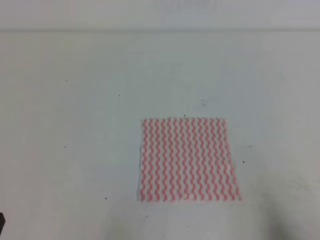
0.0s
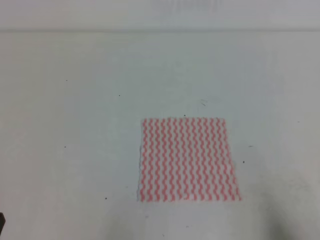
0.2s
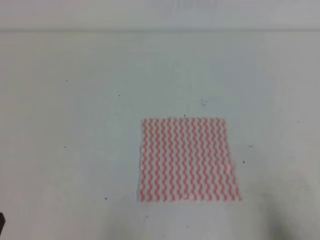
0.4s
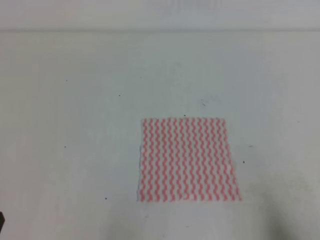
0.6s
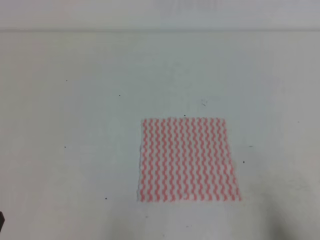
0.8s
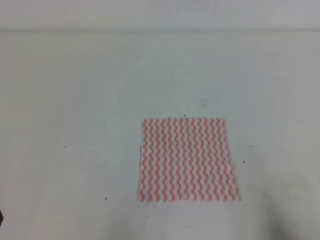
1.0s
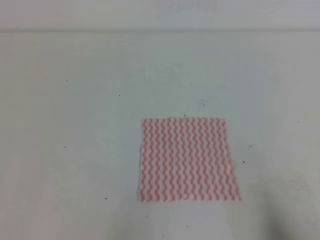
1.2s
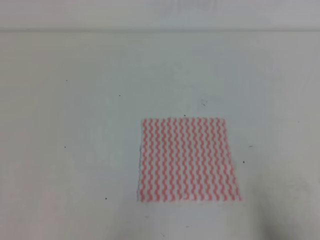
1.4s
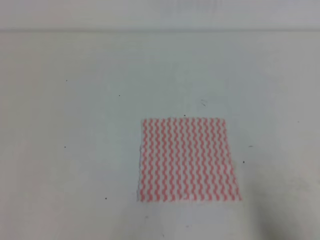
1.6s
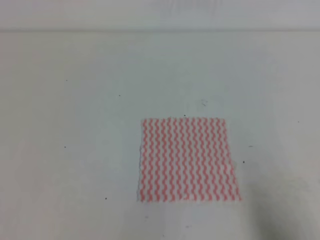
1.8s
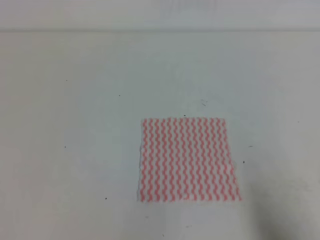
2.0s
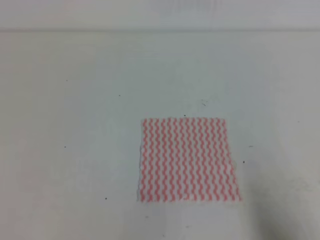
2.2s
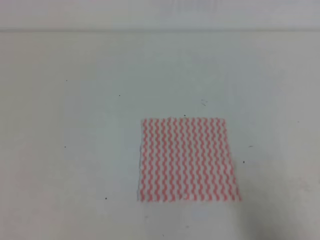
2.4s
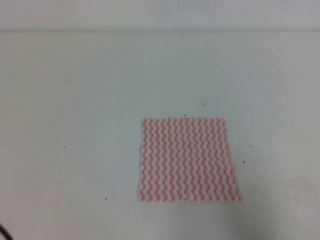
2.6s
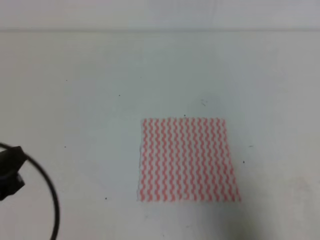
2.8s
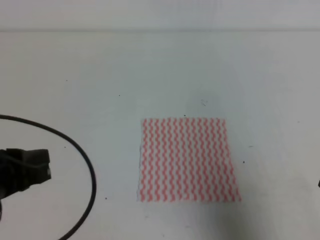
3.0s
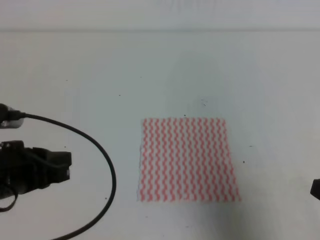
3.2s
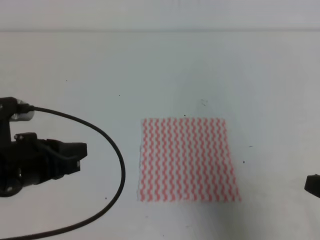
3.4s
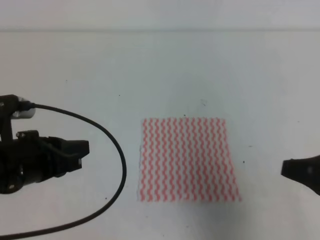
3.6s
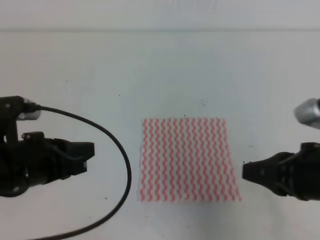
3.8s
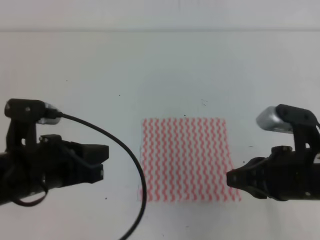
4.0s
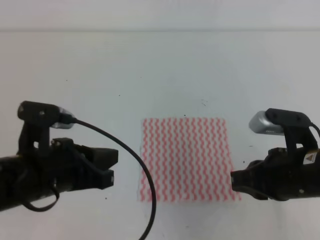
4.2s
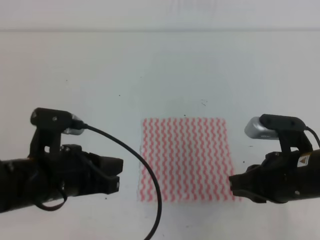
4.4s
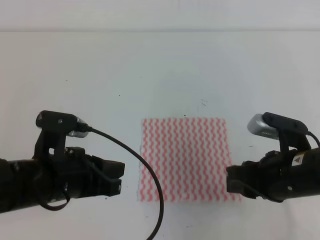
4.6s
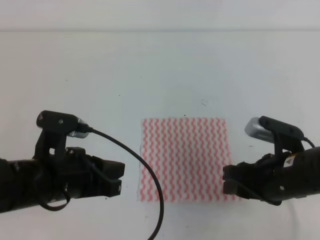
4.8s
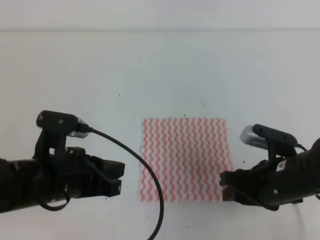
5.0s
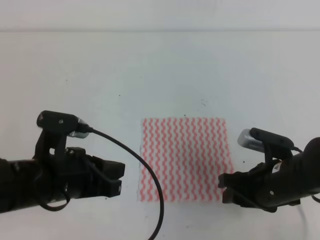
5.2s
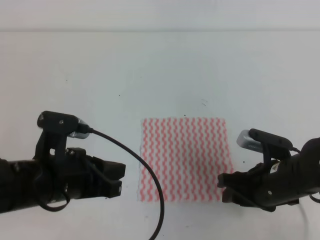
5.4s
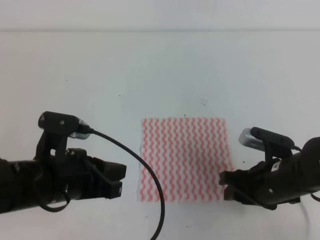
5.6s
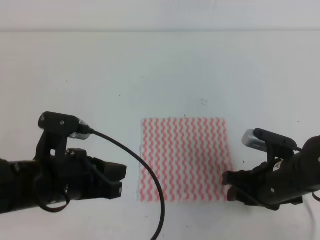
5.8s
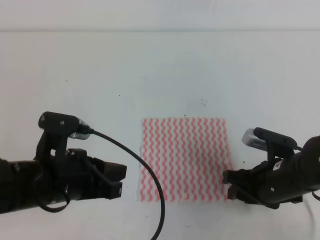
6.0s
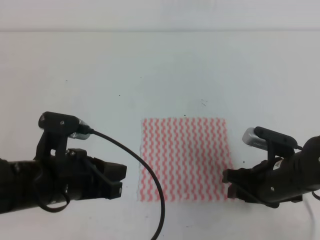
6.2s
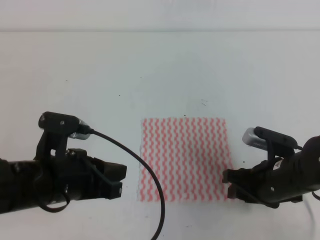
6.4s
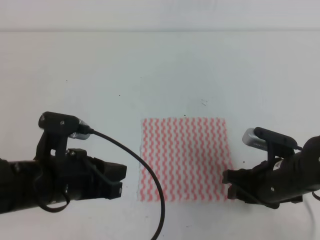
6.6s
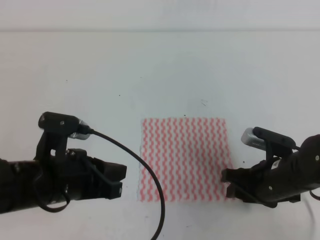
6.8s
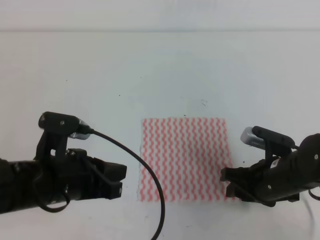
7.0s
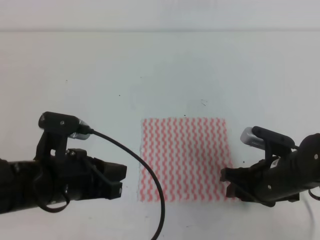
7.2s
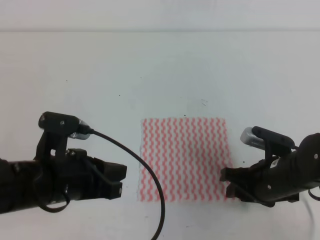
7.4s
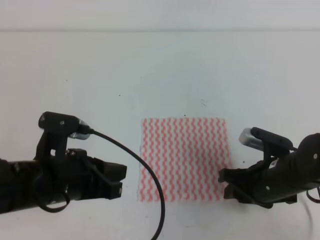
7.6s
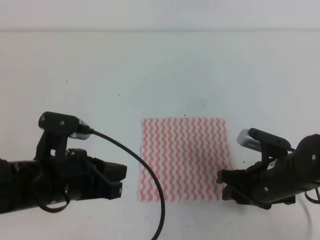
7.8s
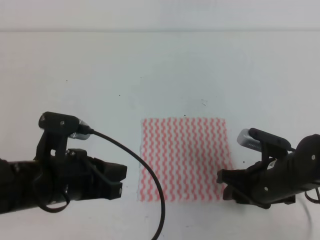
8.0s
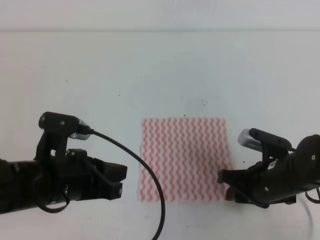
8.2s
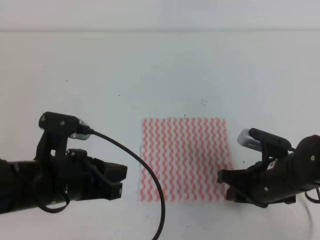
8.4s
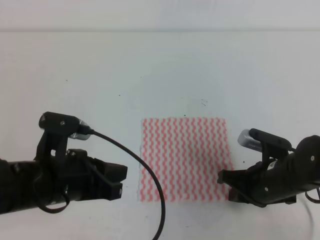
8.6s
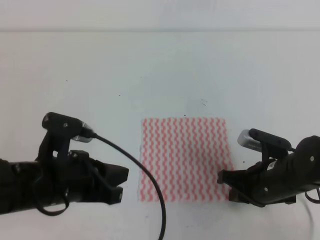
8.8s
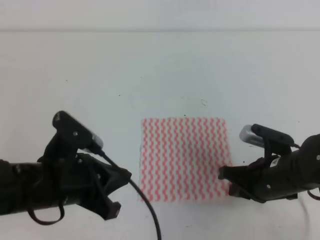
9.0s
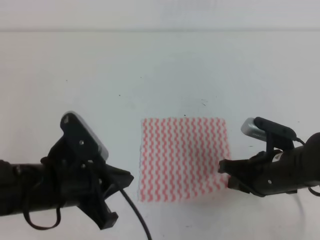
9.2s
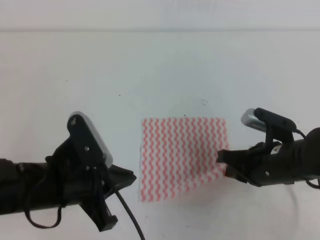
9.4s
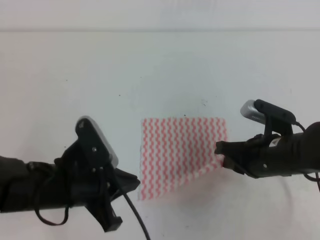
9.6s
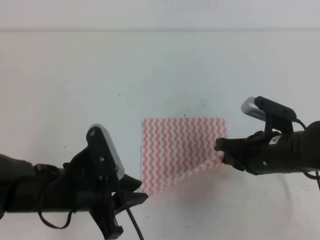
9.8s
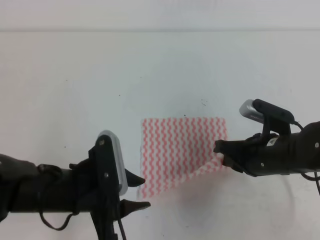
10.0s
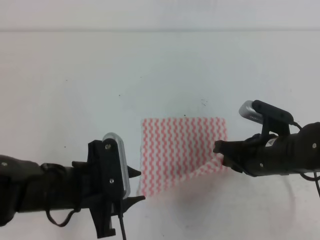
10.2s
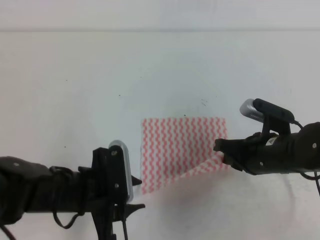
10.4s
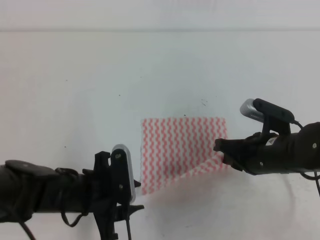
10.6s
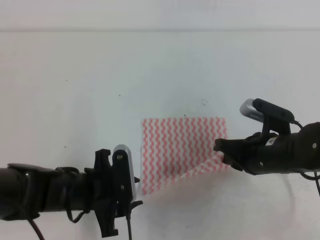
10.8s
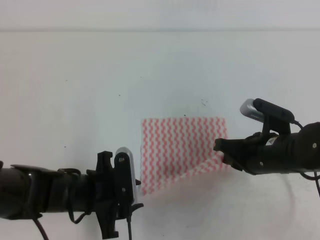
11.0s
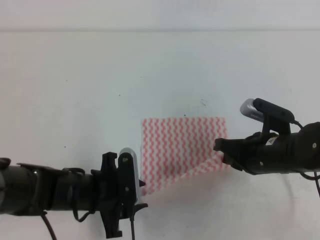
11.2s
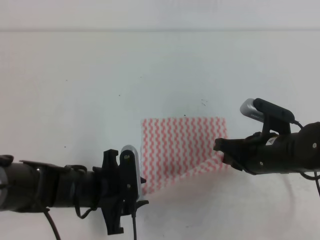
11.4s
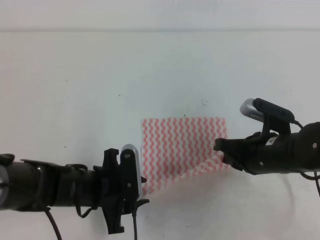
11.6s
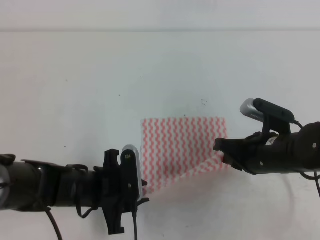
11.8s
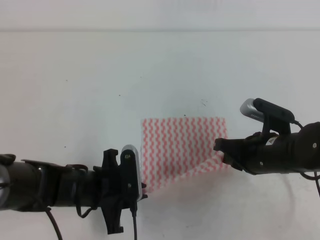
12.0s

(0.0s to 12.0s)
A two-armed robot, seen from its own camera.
1.6s - 3.0s: The right gripper goes approximately 10 cm upward, while the left gripper shifts some 10 cm forward and upward.
3.0s - 4.4s: The left gripper heads to the right, covering approximately 5 cm. The right gripper shifts approximately 15 cm forward and to the left.
4.4s - 6.0s: The right gripper is displaced downward by some 5 cm, and opens its fingers.
6.0s - 7.6s: The two grippers keep their place.
7.6s - 9.0s: The right gripper closes up.
9.0s - 10.4s: The left gripper shifts about 5 cm downward, and opens its fingers.
10.4s - 12.0s: The left gripper shifts by approximately 5 cm, and closes.

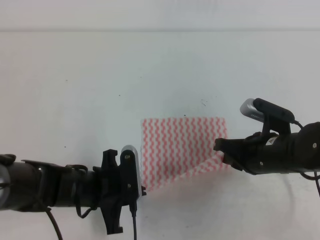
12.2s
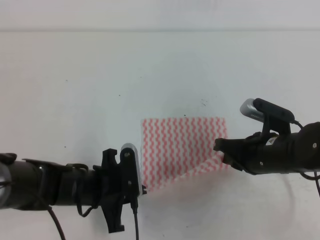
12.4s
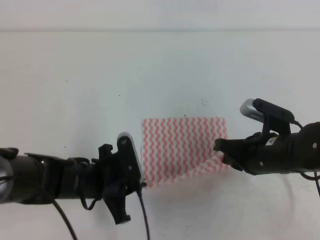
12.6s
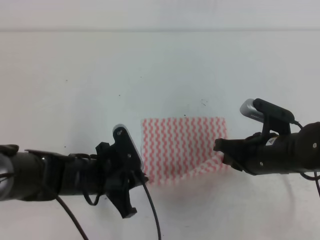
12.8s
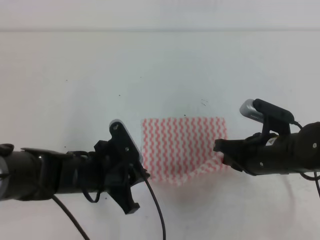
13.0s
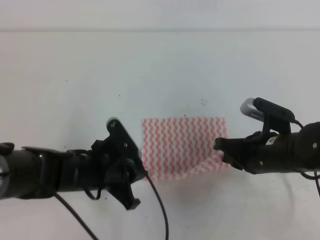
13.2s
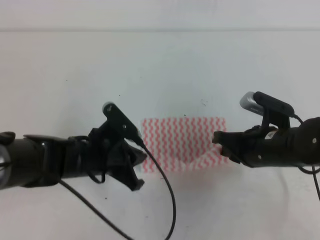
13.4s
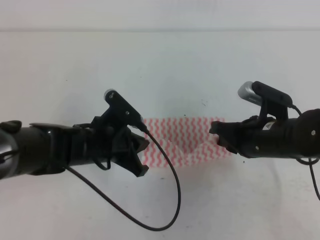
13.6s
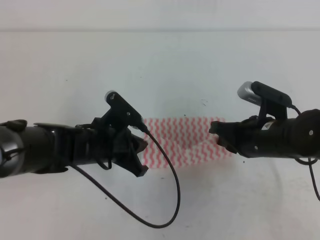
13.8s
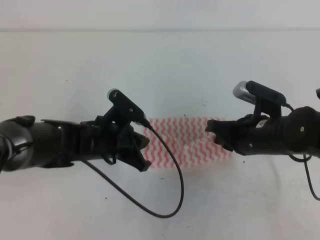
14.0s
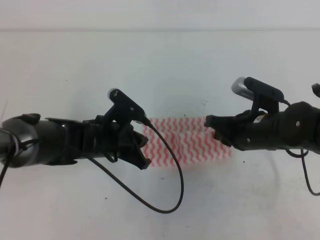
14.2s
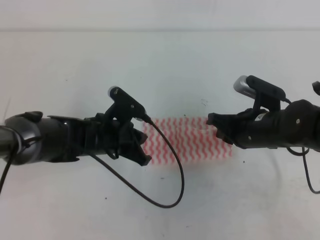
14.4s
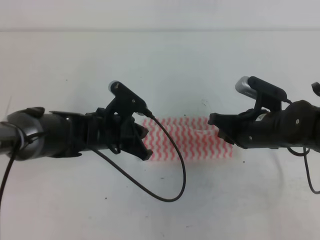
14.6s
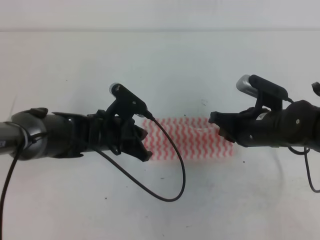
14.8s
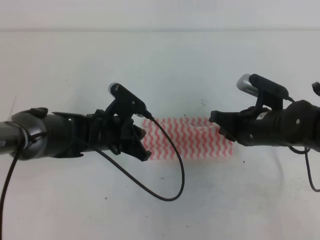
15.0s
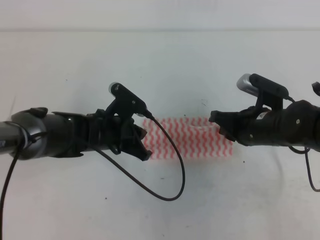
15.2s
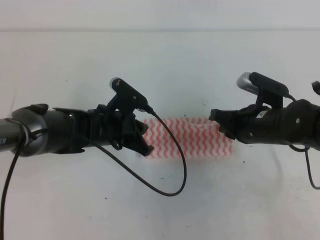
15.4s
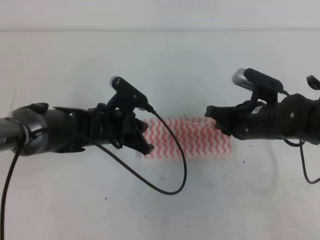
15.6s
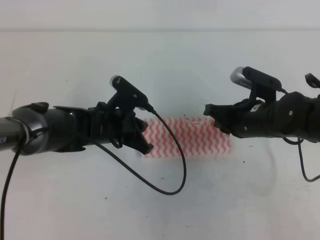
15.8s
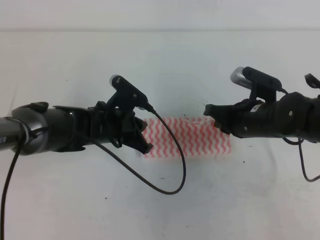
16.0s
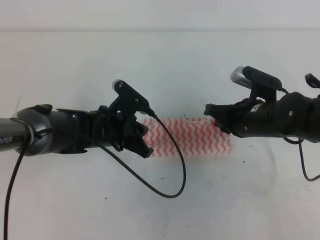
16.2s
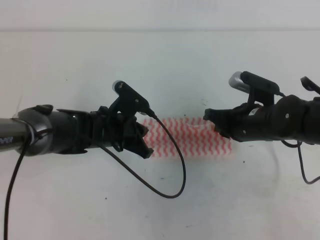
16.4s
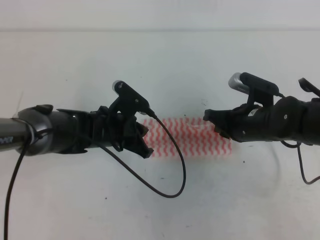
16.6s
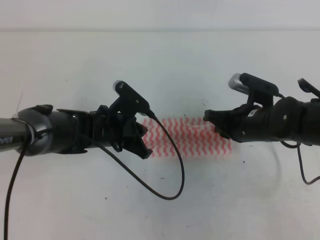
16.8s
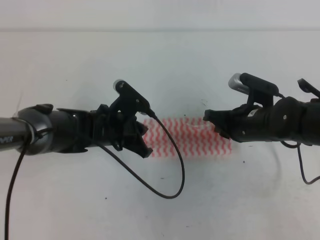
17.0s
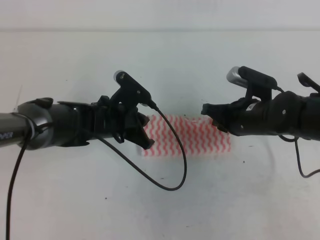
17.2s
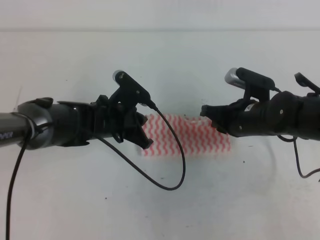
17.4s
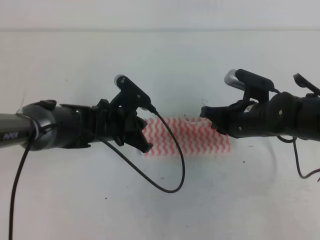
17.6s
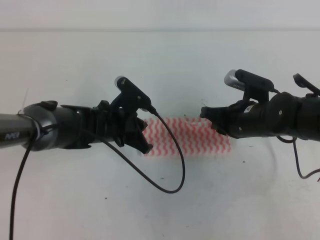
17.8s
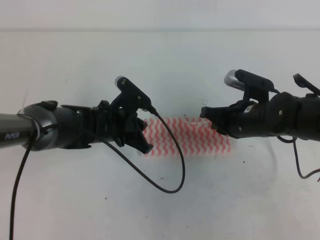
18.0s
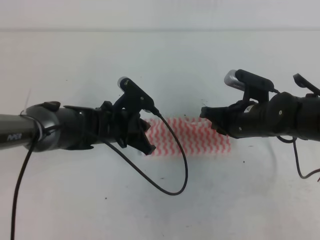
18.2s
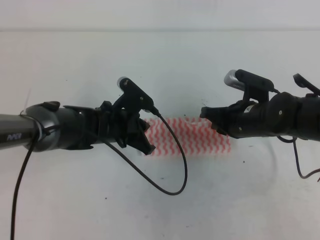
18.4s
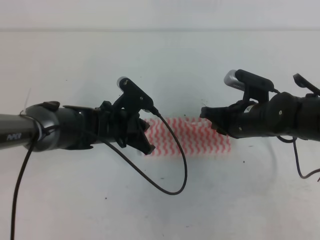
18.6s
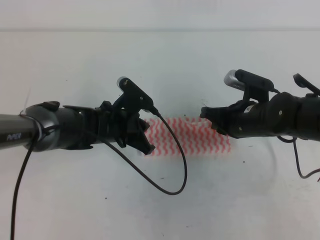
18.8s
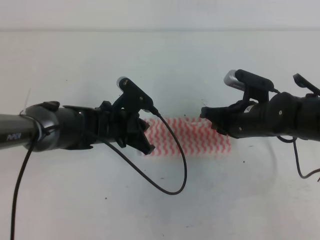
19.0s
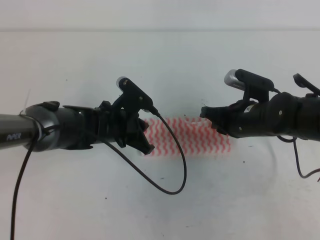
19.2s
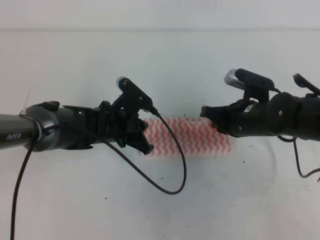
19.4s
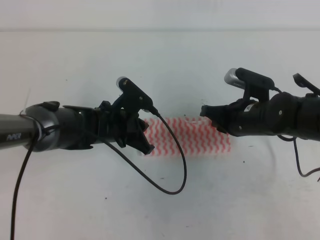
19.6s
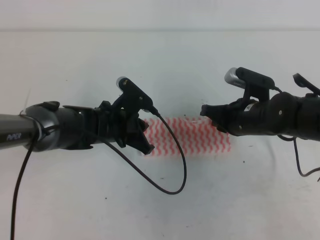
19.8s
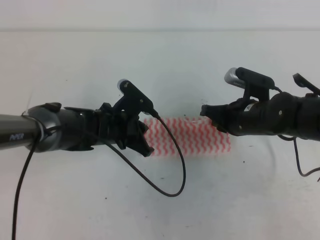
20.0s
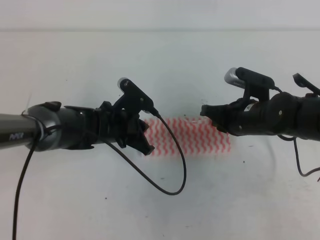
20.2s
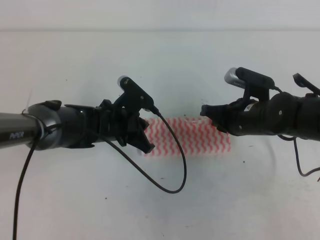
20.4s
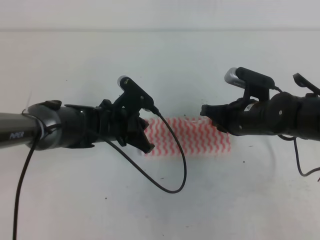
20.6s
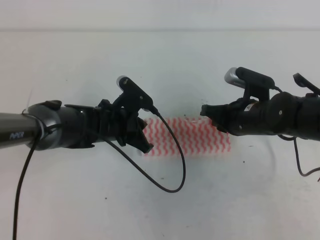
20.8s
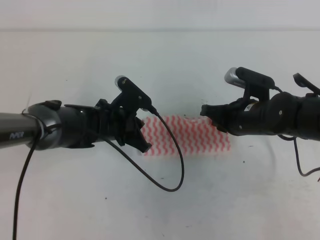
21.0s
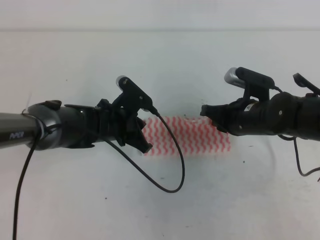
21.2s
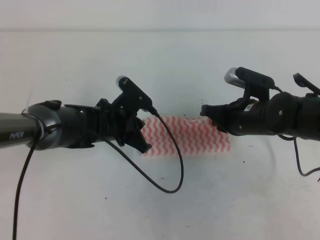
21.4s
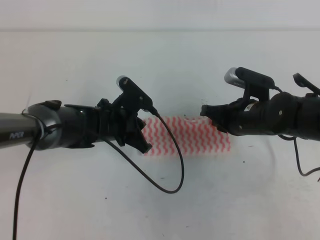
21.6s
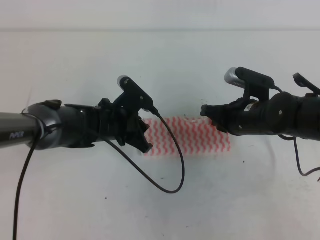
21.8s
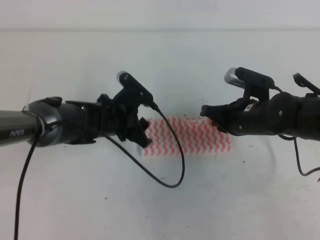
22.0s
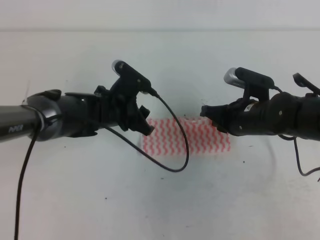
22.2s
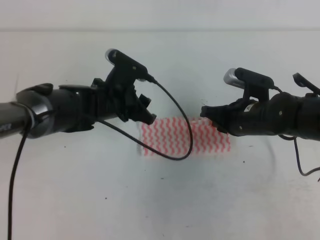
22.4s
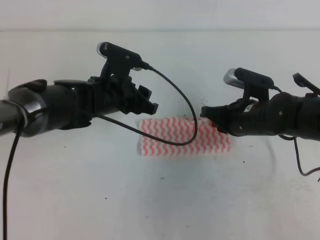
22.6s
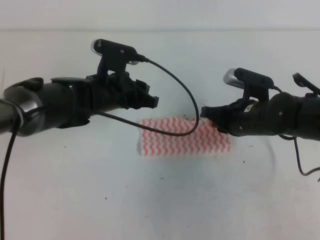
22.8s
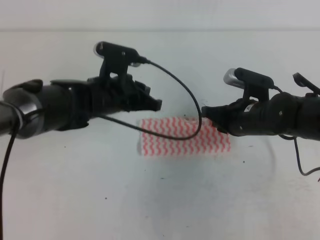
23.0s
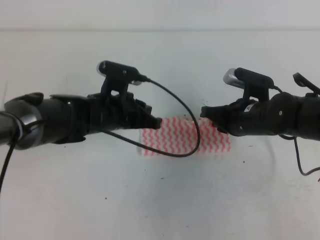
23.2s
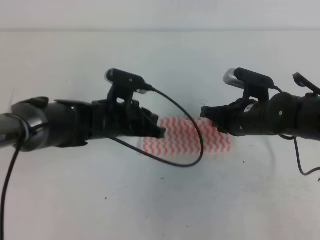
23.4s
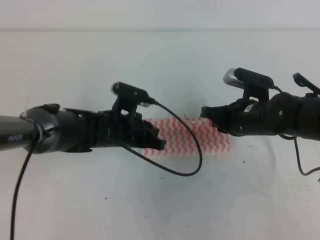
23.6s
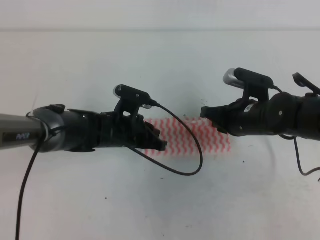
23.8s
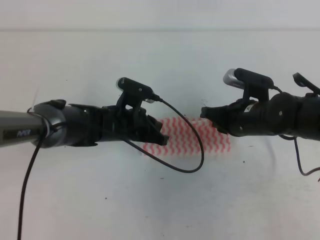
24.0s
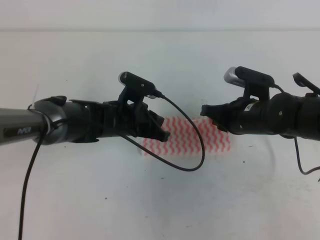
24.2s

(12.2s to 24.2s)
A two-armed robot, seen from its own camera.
12.2s - 13.8s: The left gripper is displaced forward by some 5 cm.
13.8s - 16.6s: The grippers stay close to where they were, moving slightly.
16.6s - 19.8s: The two grippers keep their place.
19.8s - 21.2s: Neither gripper changes place.
21.2s - 22.6s: The left gripper moves upward, about 5 cm, and opens its fingers.
22.6s - 24.2s: The left gripper moves downward, approximately 5 cm, and closes.
